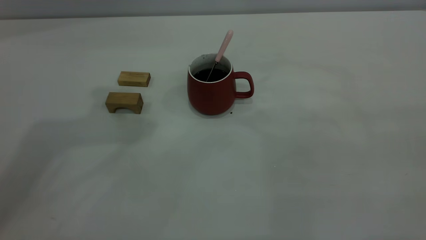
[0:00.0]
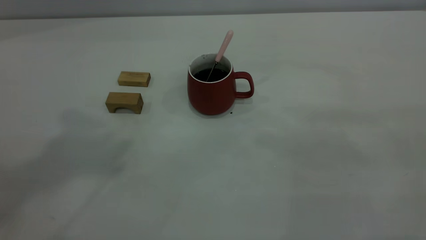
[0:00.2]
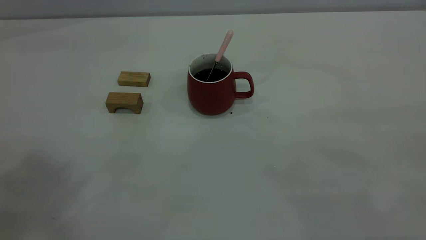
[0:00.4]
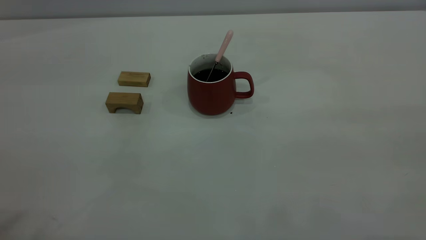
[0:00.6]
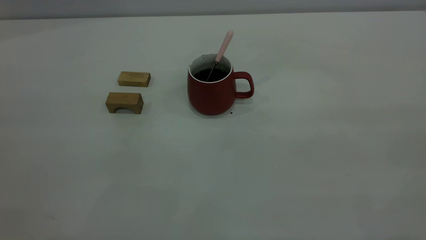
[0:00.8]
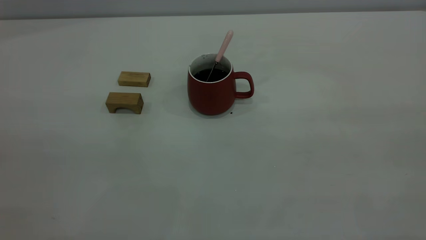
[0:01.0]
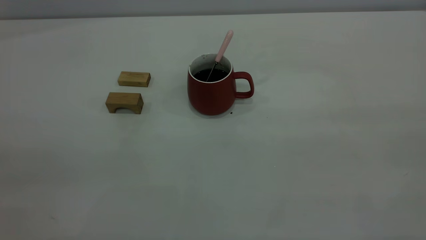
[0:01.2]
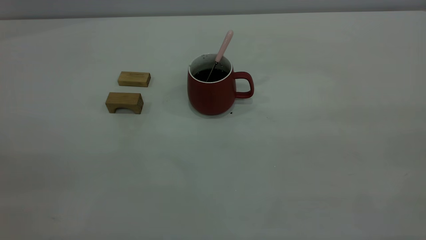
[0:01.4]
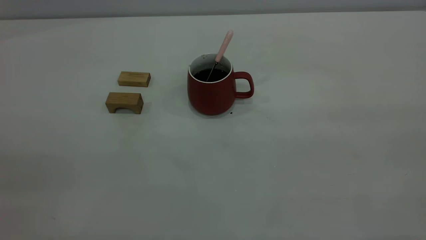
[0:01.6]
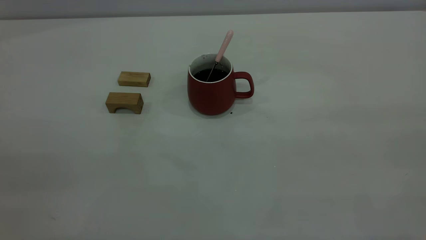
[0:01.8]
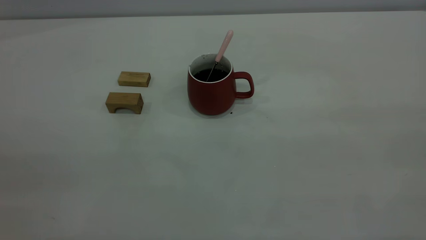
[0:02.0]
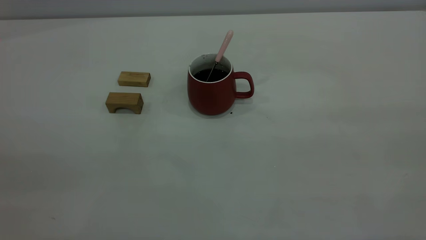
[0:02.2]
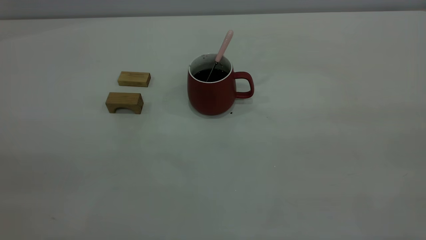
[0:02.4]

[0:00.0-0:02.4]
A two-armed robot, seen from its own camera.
0:01.2 to 0:02.4: Neither gripper changes place.

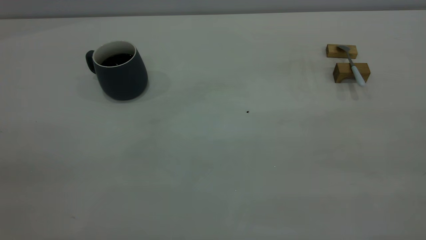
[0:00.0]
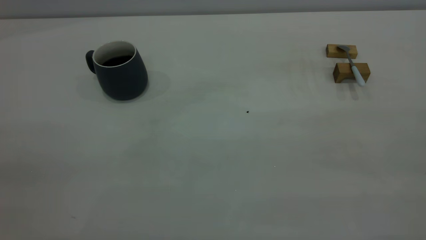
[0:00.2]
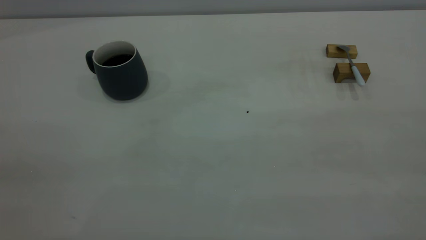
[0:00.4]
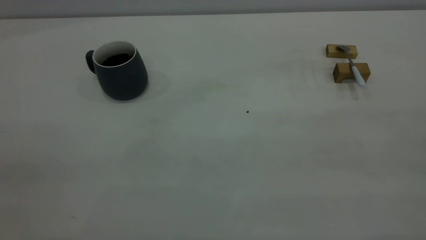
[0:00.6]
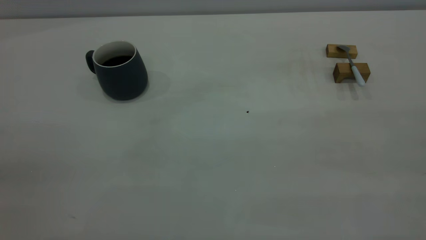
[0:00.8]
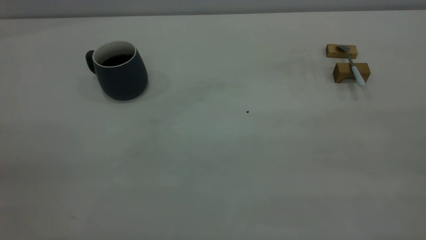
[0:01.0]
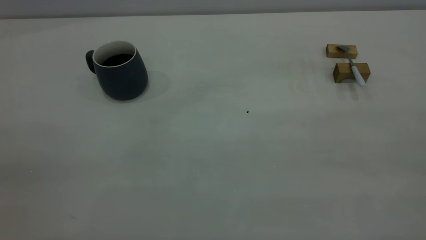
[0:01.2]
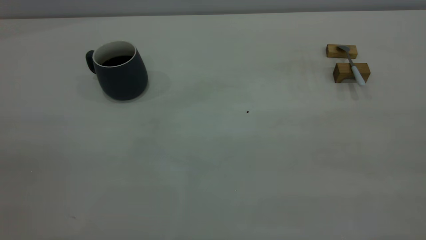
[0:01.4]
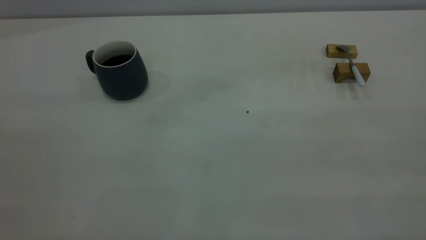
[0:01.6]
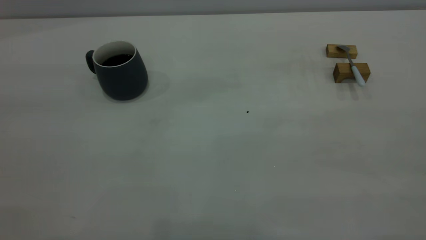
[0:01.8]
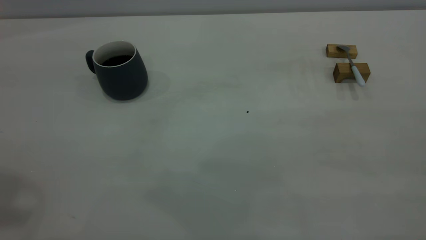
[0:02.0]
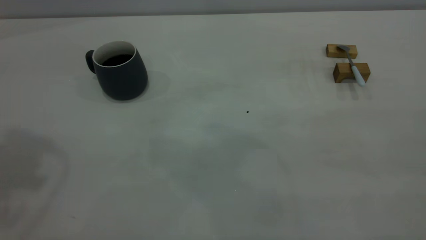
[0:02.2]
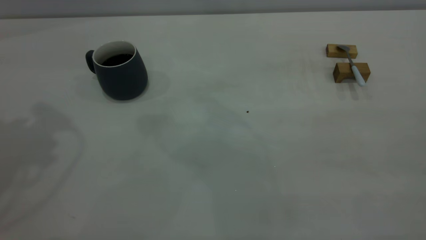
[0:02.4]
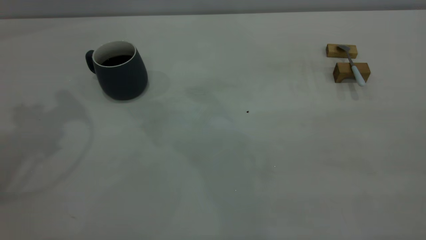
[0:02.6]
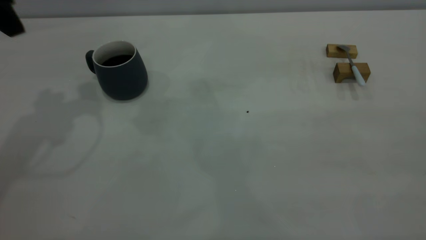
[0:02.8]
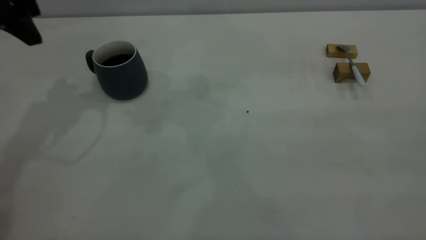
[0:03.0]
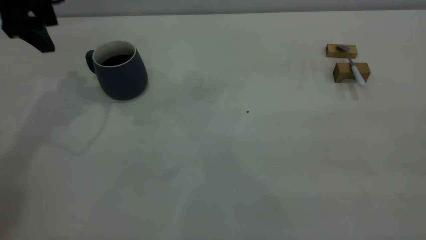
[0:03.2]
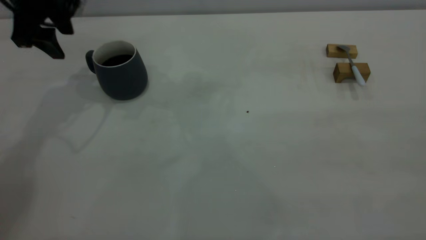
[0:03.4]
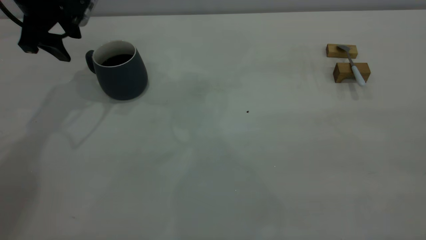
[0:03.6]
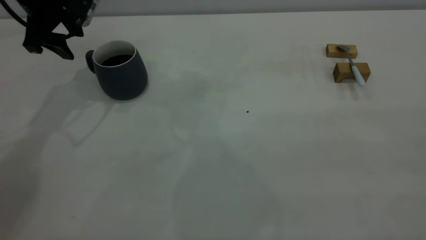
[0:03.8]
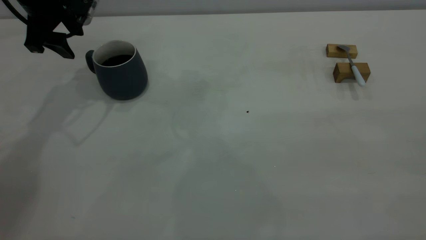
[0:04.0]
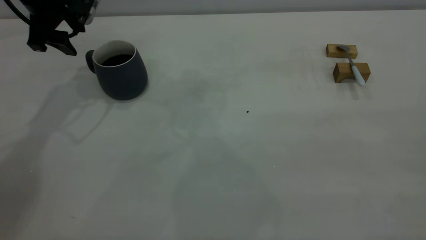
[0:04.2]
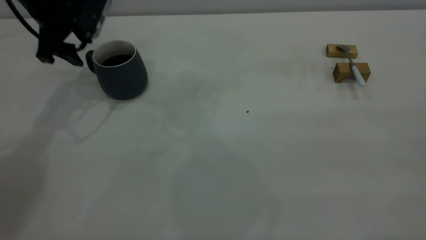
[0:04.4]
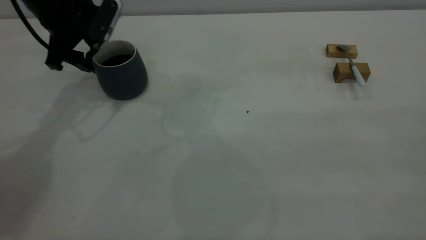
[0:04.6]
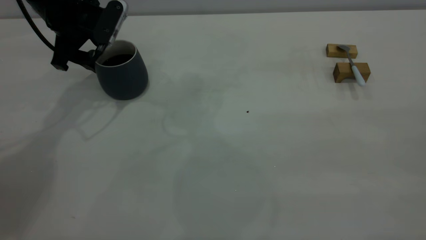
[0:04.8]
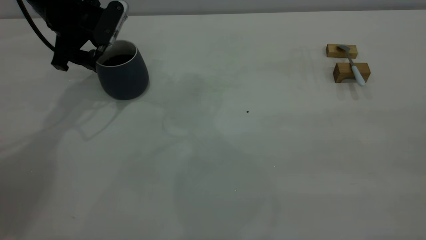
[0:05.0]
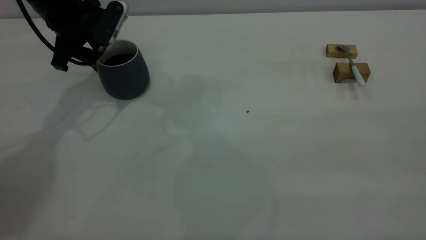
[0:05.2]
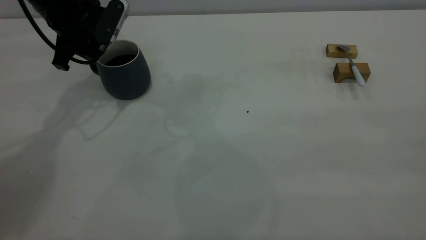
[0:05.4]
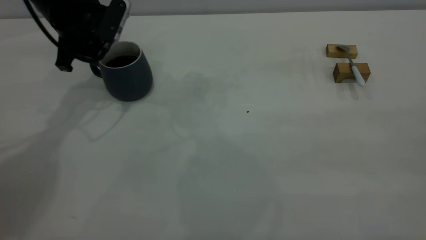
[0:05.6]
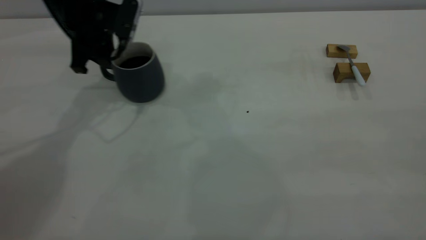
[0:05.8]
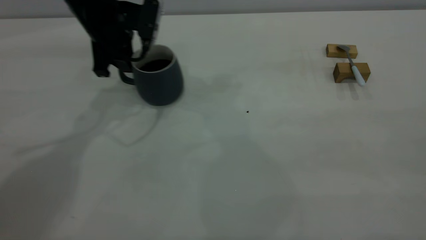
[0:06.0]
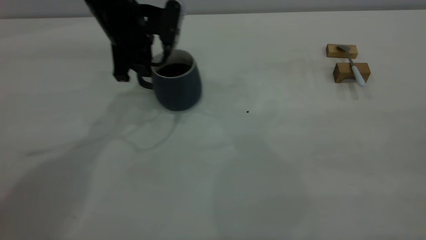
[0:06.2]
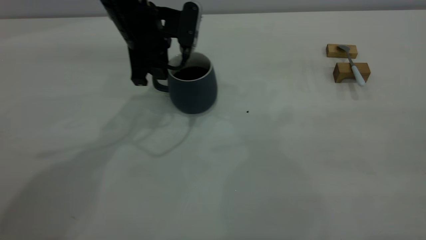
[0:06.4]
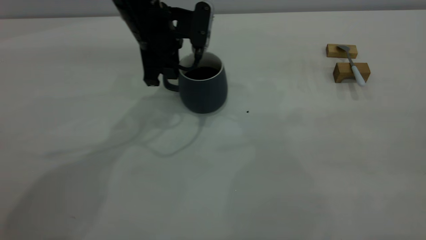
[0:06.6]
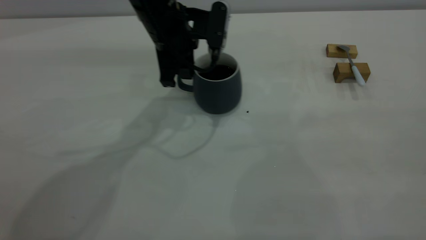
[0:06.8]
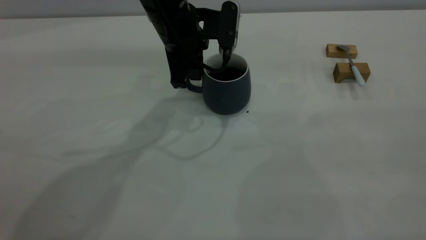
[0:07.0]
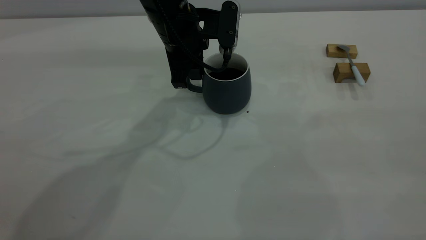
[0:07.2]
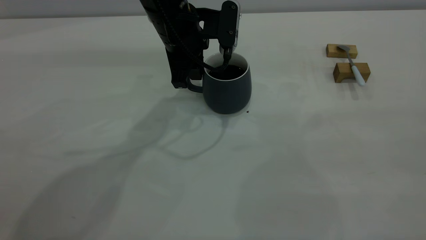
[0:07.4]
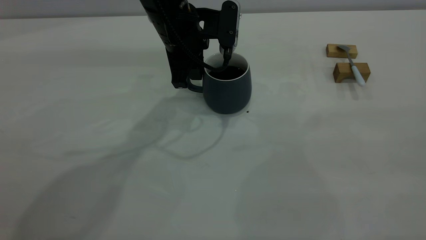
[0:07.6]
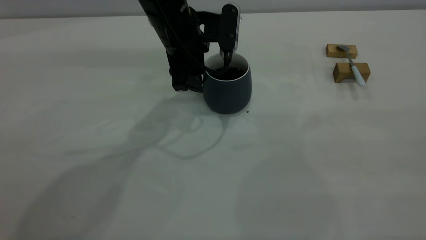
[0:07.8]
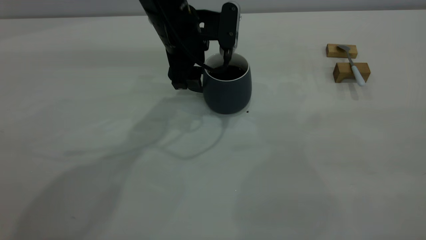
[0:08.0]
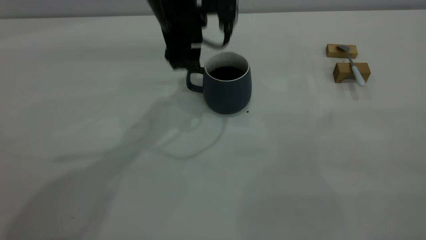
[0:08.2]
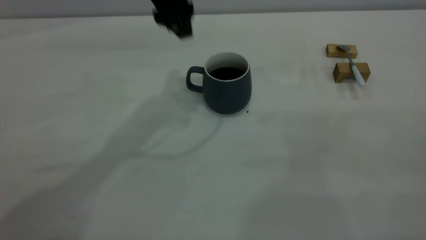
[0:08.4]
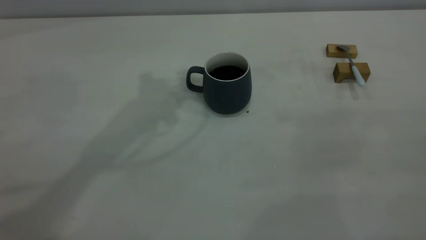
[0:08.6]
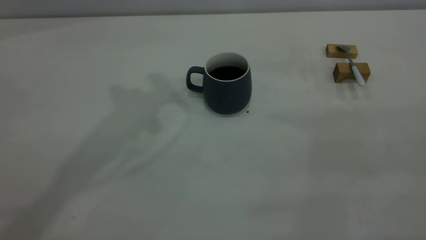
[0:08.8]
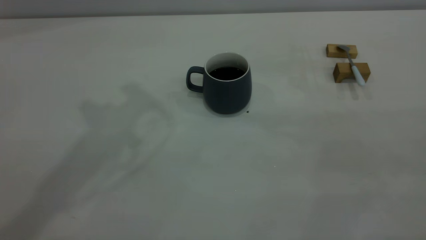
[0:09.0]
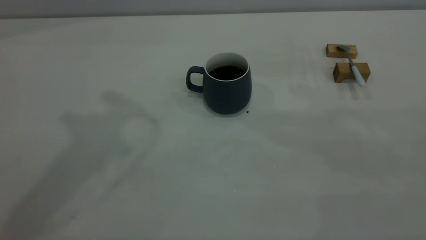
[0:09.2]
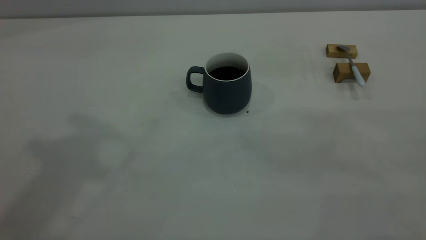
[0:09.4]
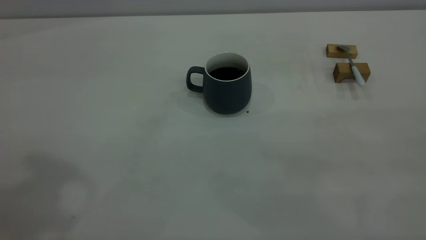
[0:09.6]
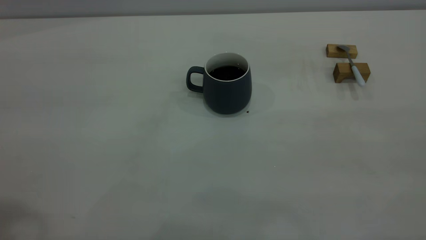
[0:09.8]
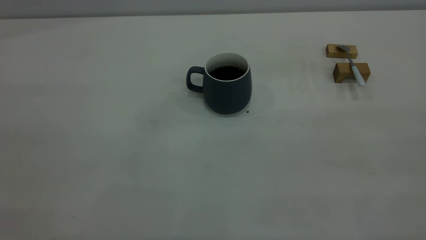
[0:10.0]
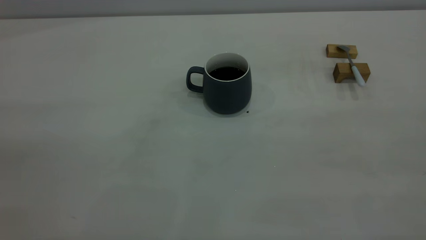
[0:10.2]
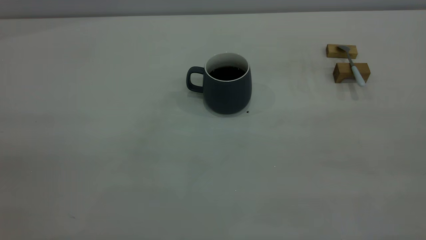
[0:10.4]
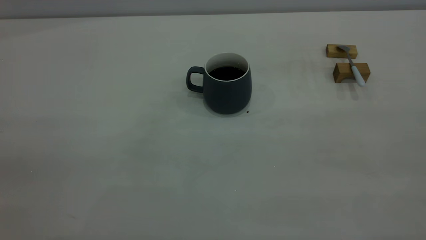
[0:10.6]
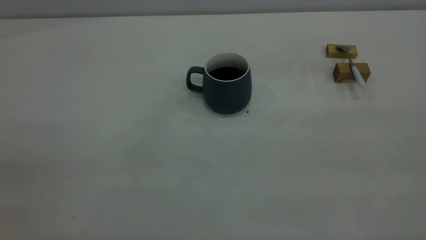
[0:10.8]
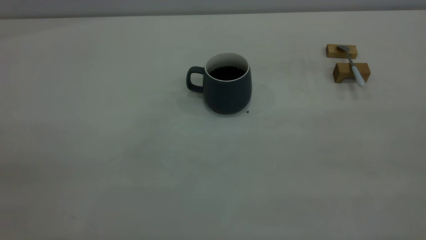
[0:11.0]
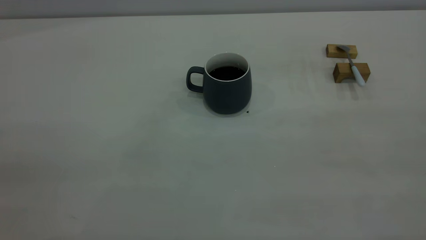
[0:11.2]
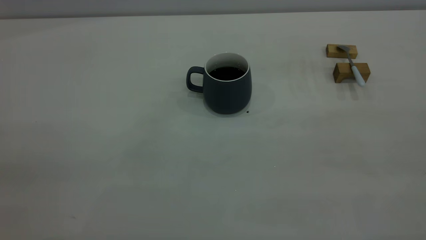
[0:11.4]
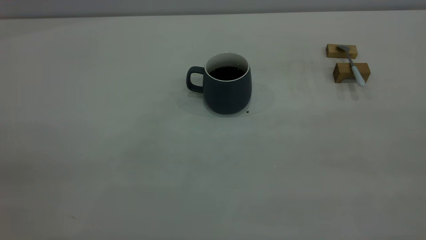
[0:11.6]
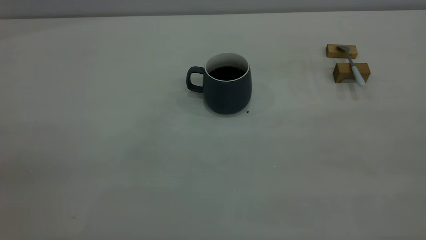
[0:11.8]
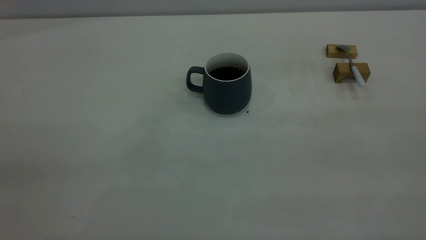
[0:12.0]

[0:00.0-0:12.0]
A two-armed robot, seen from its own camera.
Step, 0:00.0 to 0:08.2: Move the cup with coffee to the center of view.
0:01.6 to 0:03.0: The left gripper shifts about 40 cm forward and downward, and opens up.
0:03.0 to 0:04.4: The left gripper travels downward and forward by about 10 cm.
0:04.4 to 0:06.0: The left gripper shifts approximately 10 cm to the right, and closes its fingers.
0:06.0 to 0:07.6: The left gripper heads to the right, covering about 10 cm.
0:07.6 to 0:09.0: The left gripper goes roughly 30 cm upward, and opens, then closes again.

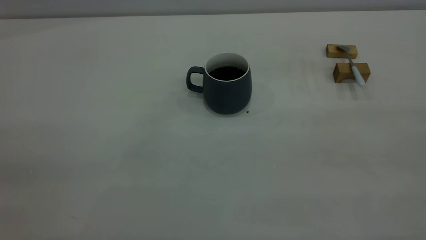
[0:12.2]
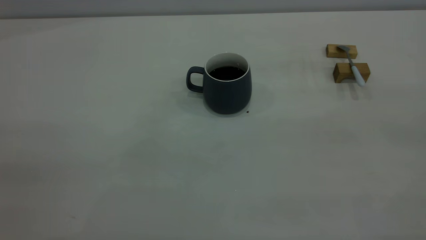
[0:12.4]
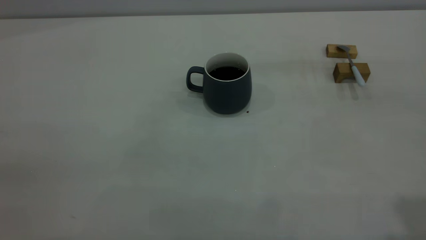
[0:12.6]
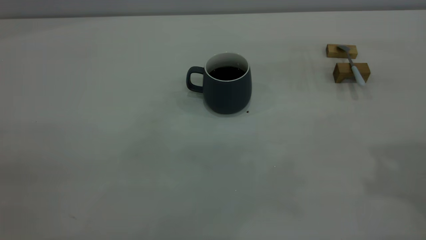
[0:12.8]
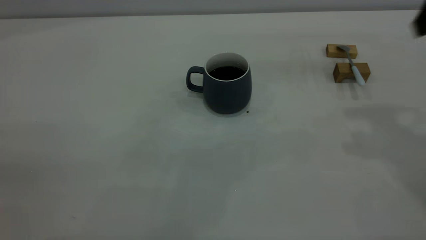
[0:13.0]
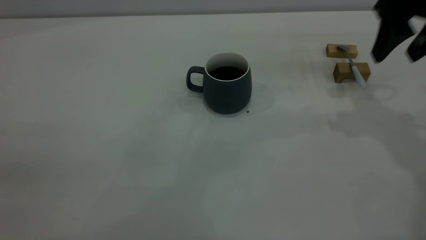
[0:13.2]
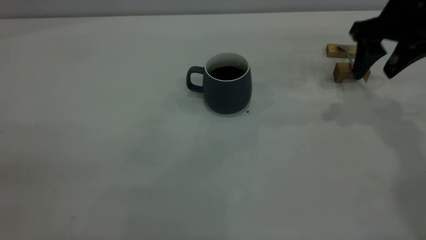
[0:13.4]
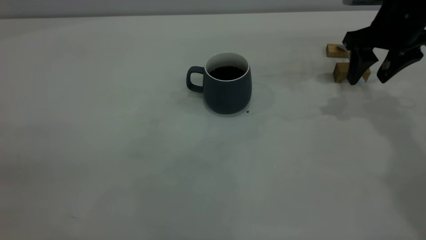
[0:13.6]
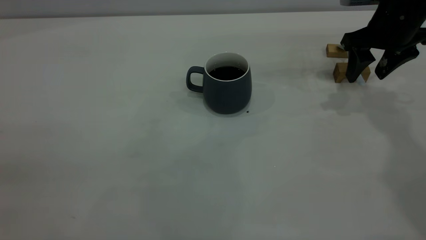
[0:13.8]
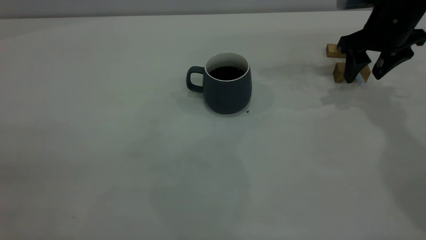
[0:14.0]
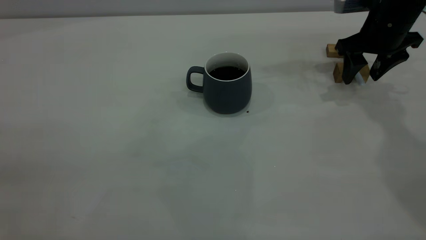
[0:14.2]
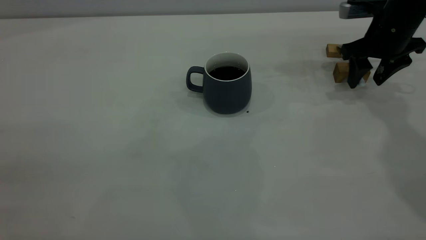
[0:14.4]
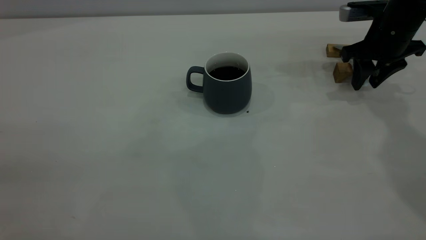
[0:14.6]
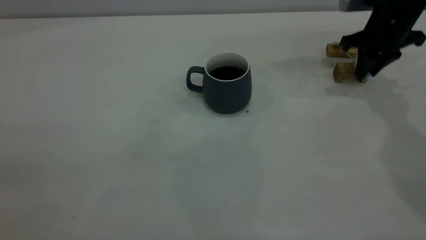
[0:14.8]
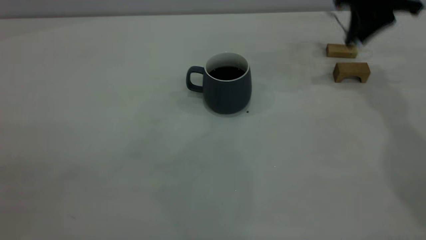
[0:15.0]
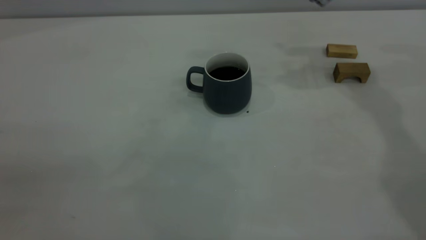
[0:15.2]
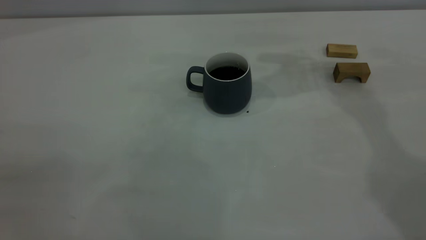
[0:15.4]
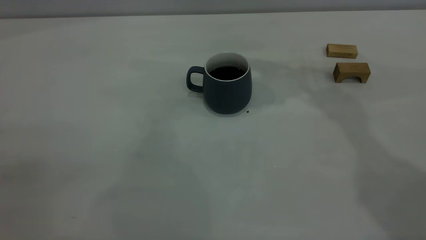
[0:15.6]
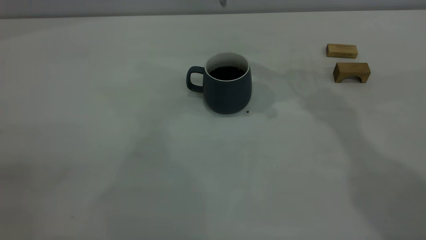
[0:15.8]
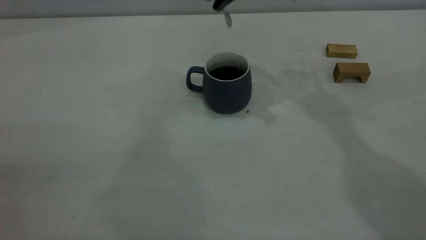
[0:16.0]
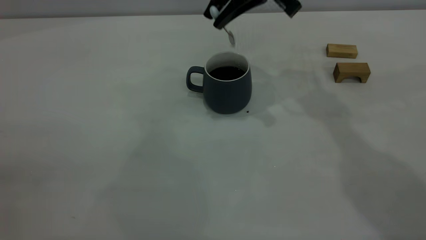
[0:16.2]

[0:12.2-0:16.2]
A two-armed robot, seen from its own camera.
Step, 0:12.2 to 0:14.8: Pick up the spoon.
0:12.2 to 0:13.6: The right gripper heads forward and downward, covering about 40 cm, and opens.
0:13.6 to 0:14.8: The right gripper travels forward by approximately 5 cm, and closes its fingers.
0:14.8 to 0:16.2: The right gripper moves to the left and upward, approximately 20 cm.
